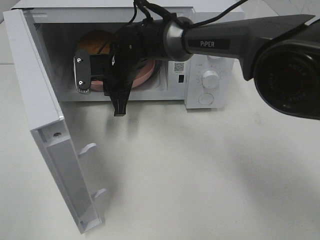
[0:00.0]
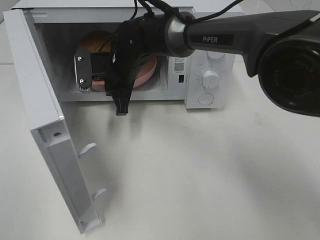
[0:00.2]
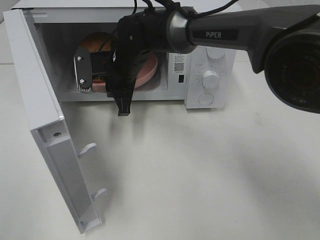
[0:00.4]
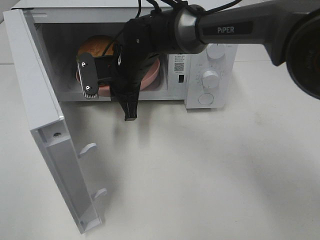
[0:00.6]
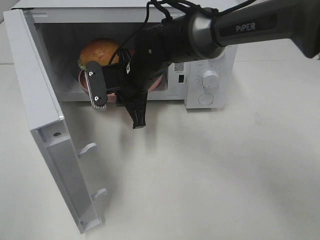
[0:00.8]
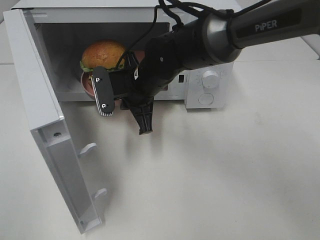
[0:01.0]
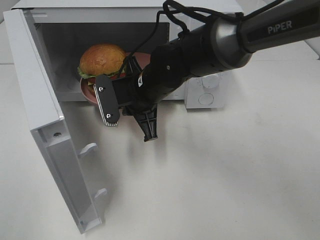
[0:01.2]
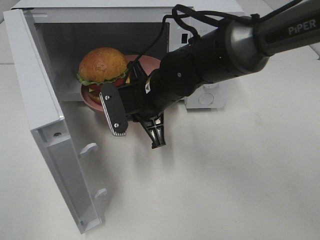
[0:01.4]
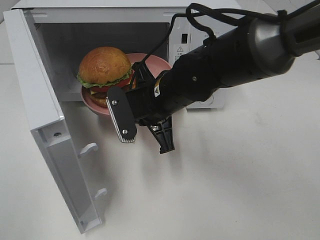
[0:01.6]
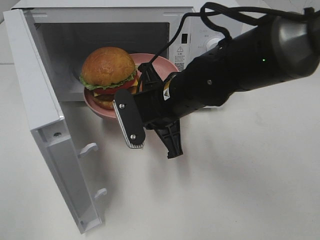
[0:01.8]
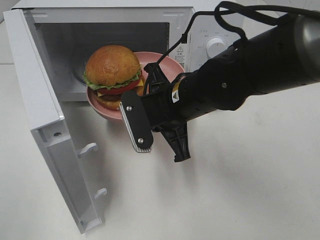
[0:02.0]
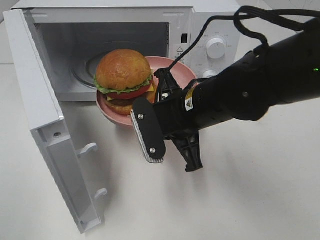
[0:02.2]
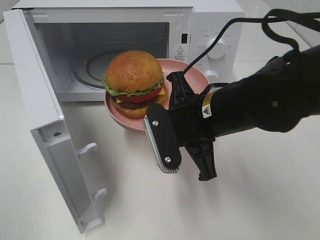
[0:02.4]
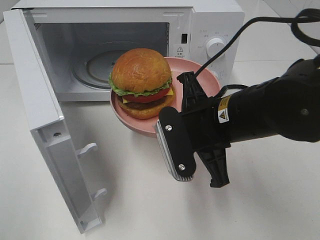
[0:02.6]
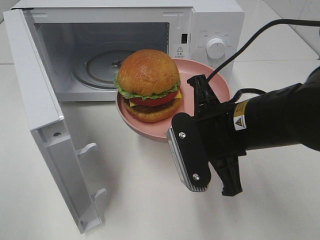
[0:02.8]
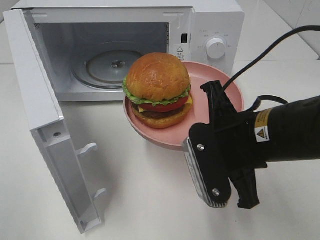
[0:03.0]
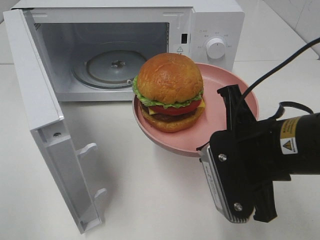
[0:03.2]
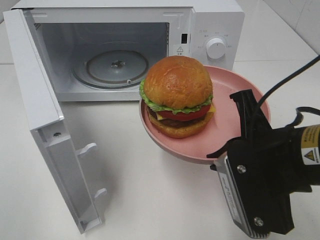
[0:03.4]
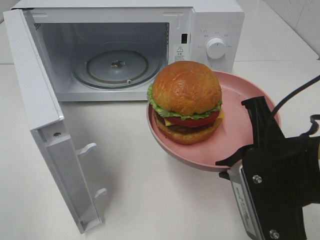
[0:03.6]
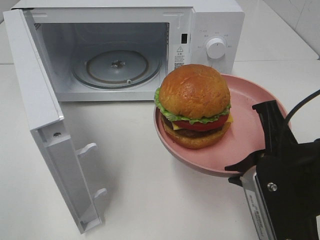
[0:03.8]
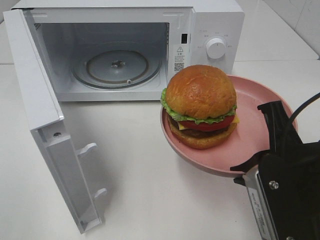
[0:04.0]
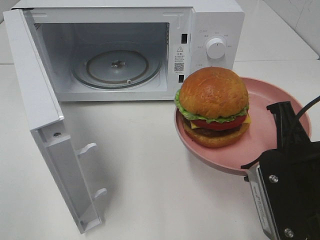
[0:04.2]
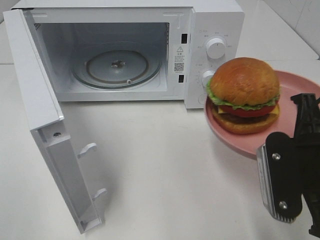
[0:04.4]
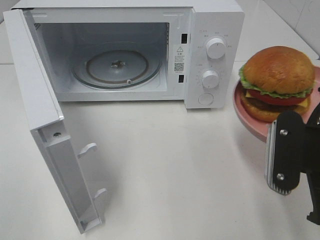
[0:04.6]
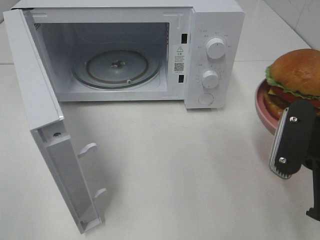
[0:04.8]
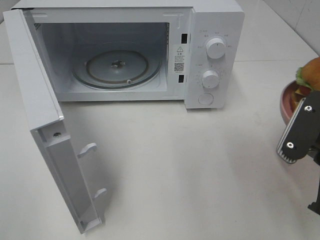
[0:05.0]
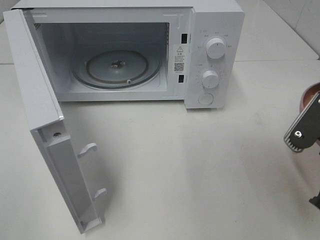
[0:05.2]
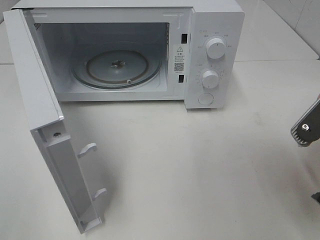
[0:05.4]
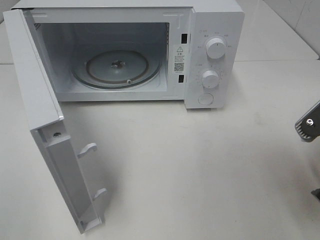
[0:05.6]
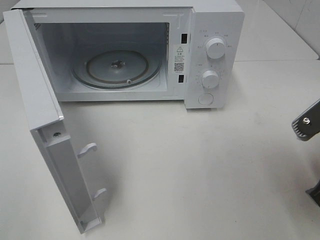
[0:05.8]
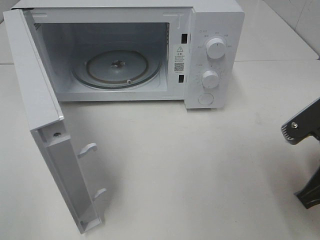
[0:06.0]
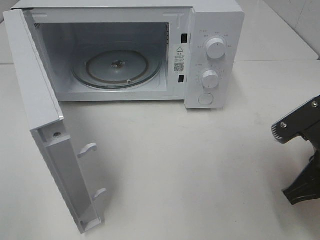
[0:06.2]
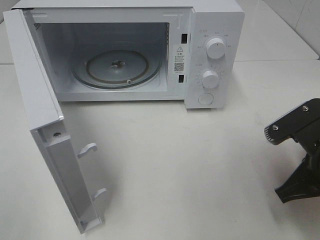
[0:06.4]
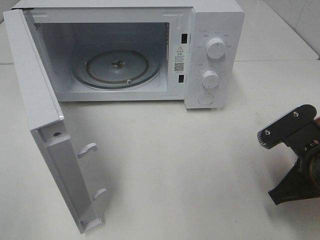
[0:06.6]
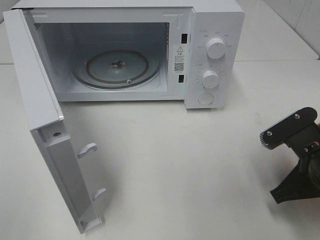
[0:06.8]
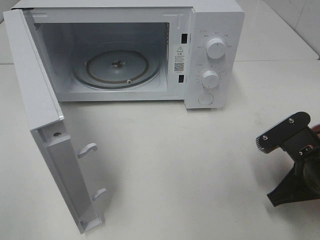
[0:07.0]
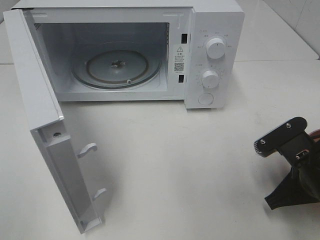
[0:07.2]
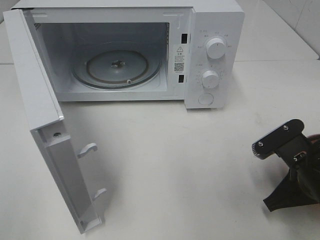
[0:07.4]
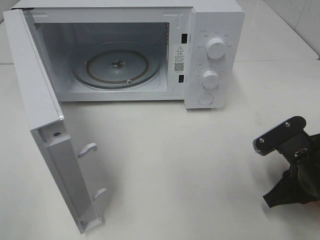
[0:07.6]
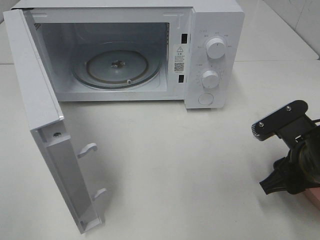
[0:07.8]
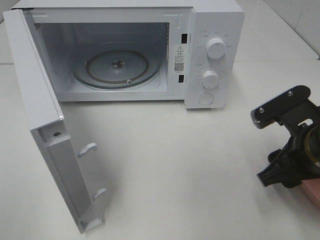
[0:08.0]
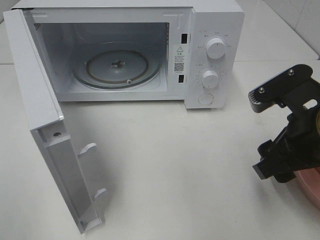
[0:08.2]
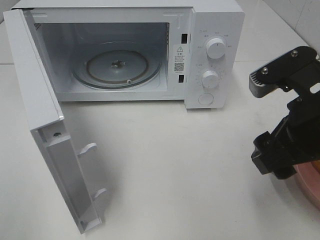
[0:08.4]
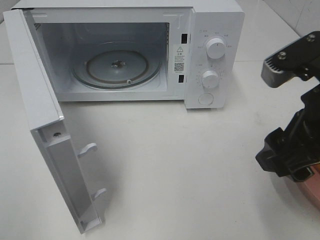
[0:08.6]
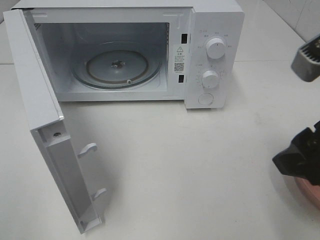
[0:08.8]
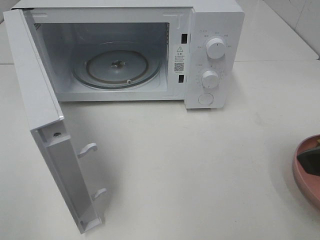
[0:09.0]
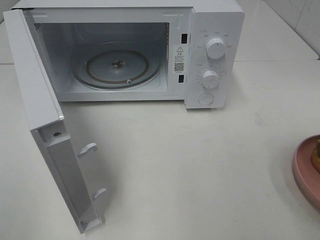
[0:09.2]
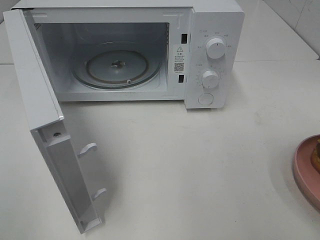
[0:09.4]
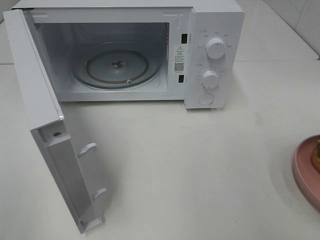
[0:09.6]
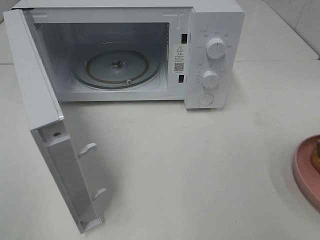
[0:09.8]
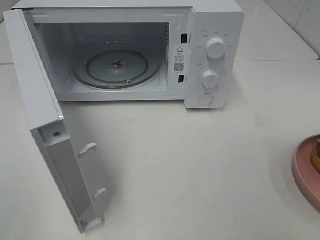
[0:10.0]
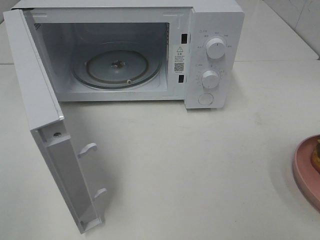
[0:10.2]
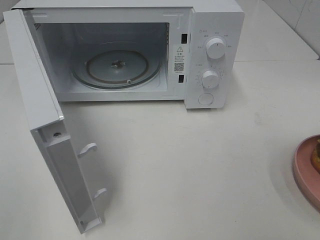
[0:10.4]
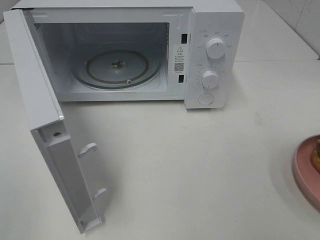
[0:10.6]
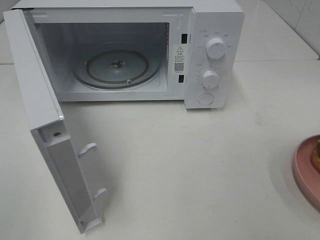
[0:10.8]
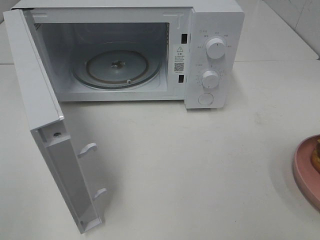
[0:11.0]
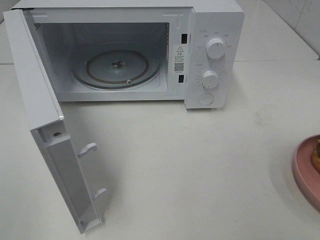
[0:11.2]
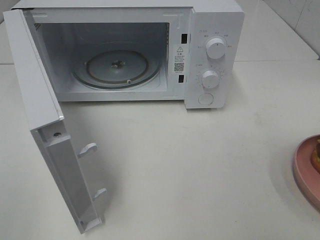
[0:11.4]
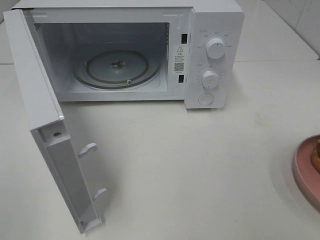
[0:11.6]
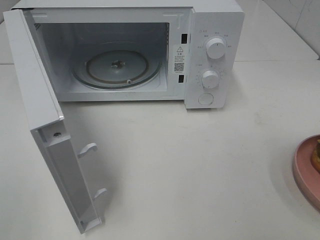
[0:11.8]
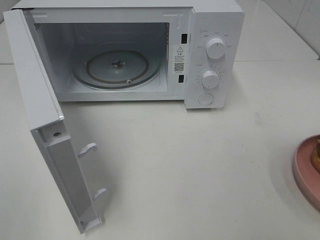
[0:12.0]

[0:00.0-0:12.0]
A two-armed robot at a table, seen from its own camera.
Task of the whole recording: Heat the burger.
Step, 0:00.0 to 0:07.6: Right hand: place the plate on the table.
0:00.0 to 0:01.6: The right gripper heads backward and to the right, covering approximately 15 cm.
0:01.6 to 0:03.0: The right gripper is displaced backward and to the right by some 15 cm.
0:03.0 to 0:04.4: The right gripper shifts some 5 cm to the right.
0:06.0 to 0:07.6: The right gripper heads downward, covering about 10 cm.
0:07.6 to 0:09.0: The right gripper travels upward by about 20 cm, and opens up.
0:09.0 to 0:10.4: The right gripper shifts approximately 15 cm backward and to the right.
0:10.4 to 0:12.0: Both grippers stay about where they are.

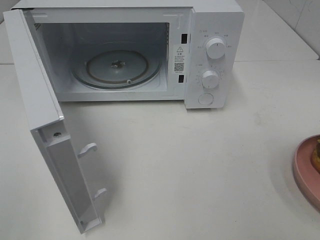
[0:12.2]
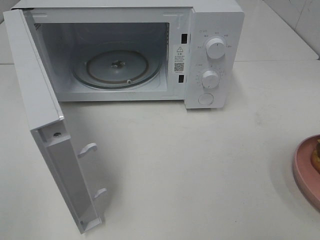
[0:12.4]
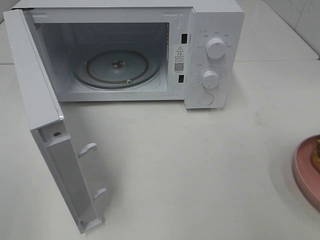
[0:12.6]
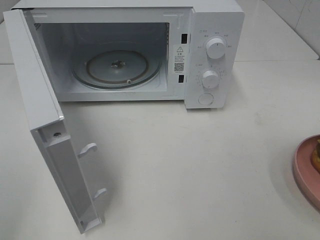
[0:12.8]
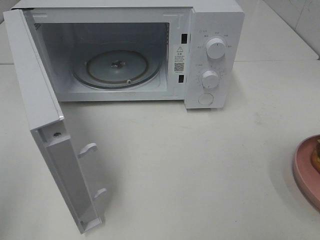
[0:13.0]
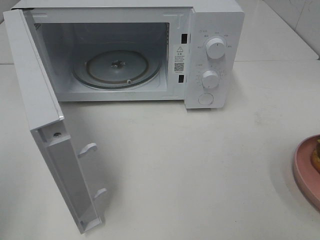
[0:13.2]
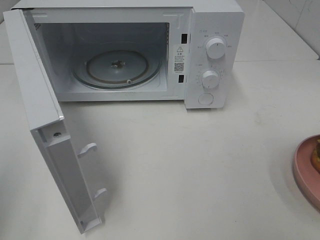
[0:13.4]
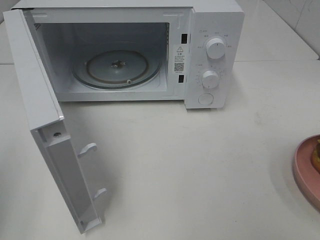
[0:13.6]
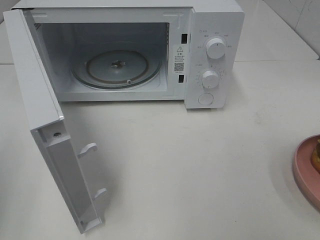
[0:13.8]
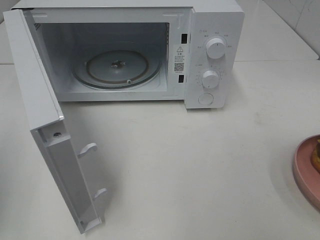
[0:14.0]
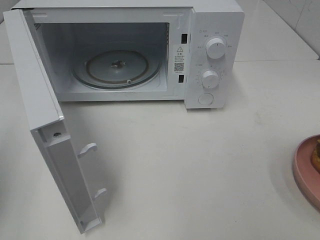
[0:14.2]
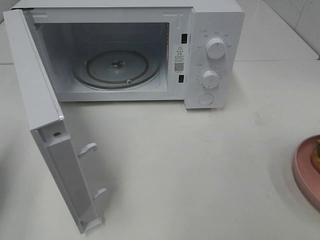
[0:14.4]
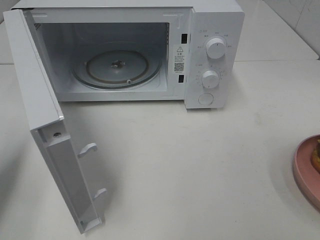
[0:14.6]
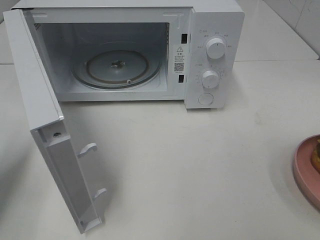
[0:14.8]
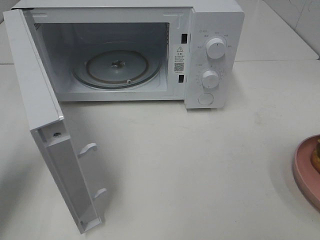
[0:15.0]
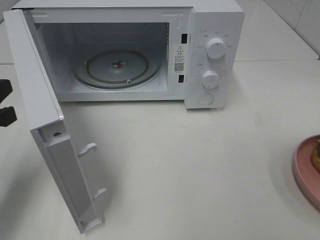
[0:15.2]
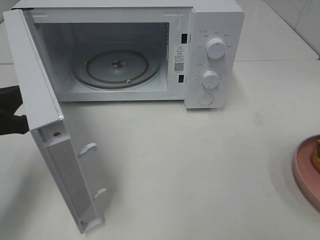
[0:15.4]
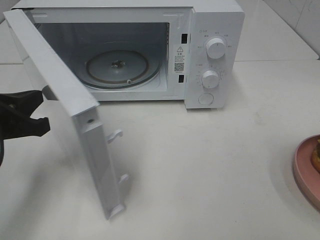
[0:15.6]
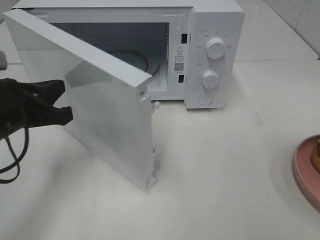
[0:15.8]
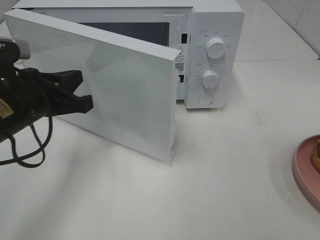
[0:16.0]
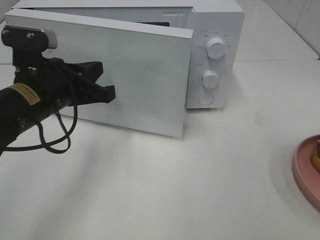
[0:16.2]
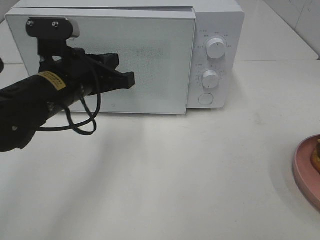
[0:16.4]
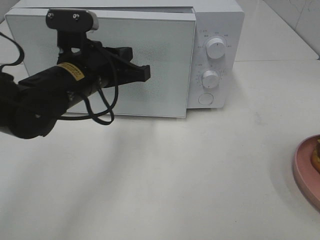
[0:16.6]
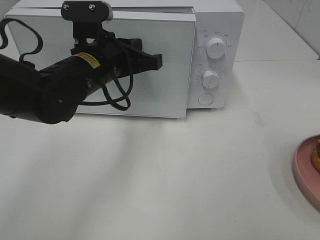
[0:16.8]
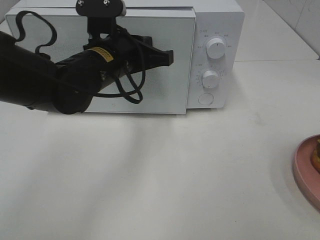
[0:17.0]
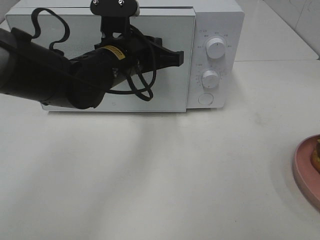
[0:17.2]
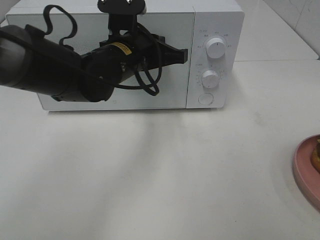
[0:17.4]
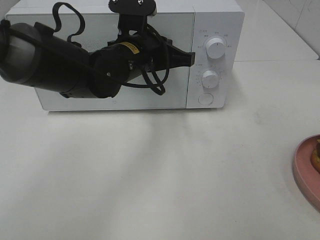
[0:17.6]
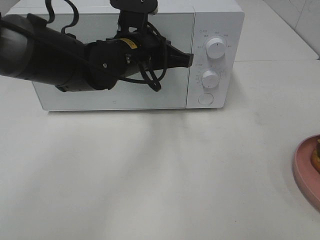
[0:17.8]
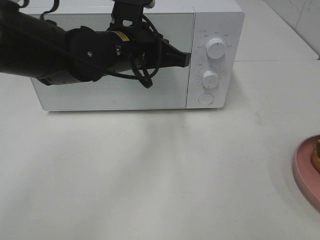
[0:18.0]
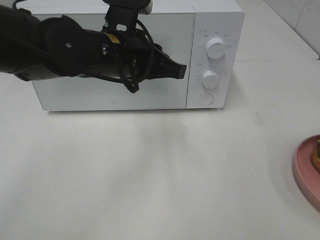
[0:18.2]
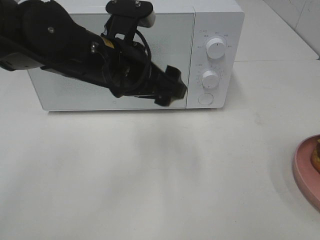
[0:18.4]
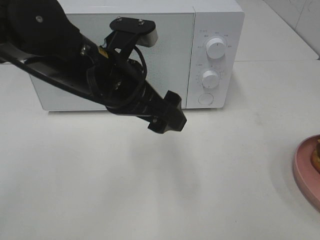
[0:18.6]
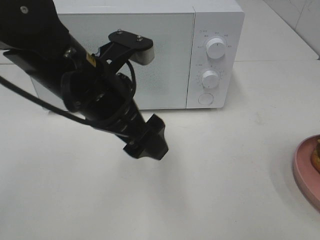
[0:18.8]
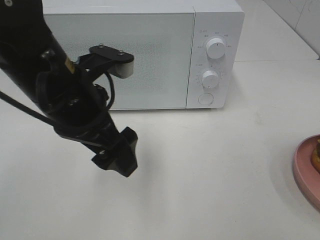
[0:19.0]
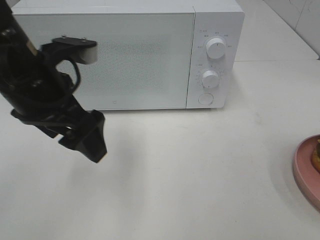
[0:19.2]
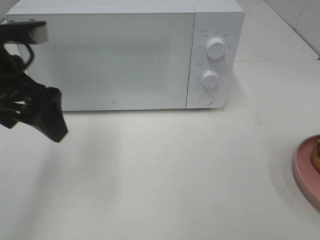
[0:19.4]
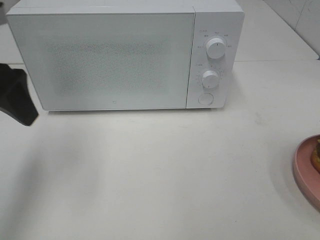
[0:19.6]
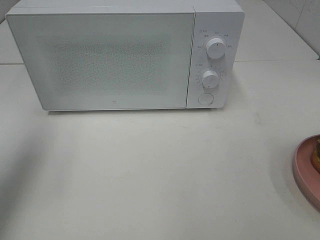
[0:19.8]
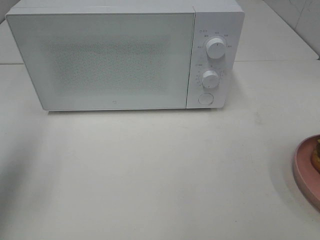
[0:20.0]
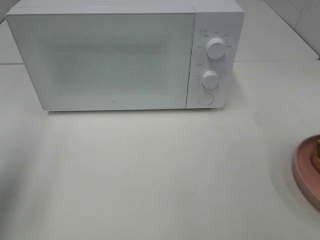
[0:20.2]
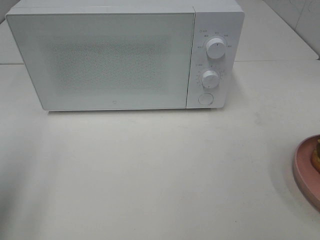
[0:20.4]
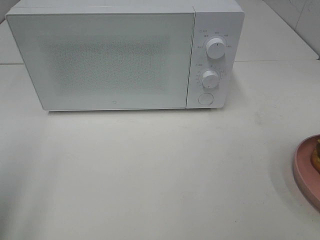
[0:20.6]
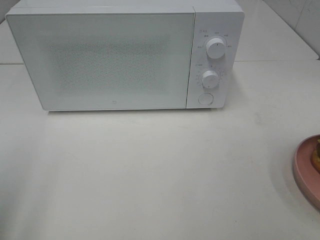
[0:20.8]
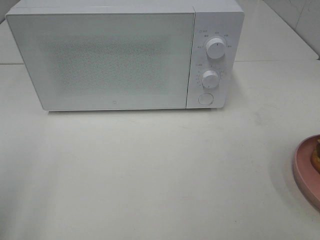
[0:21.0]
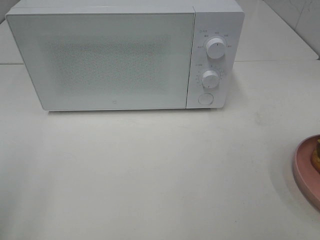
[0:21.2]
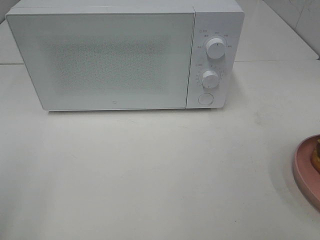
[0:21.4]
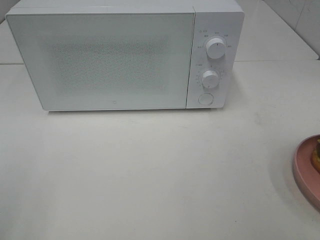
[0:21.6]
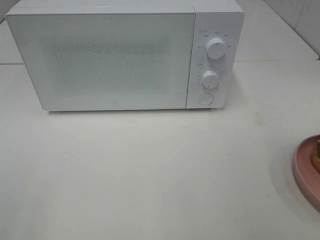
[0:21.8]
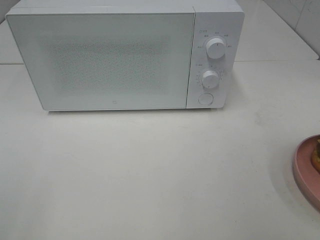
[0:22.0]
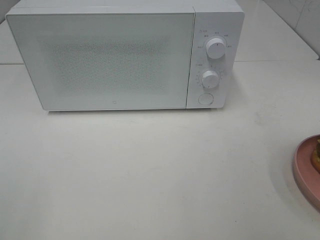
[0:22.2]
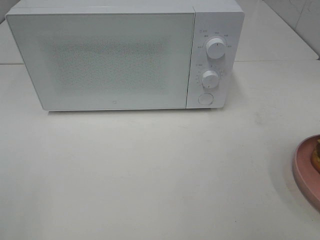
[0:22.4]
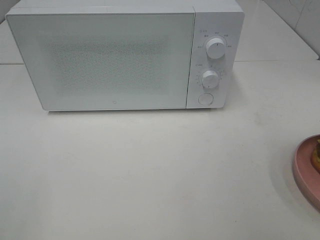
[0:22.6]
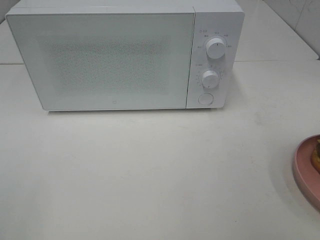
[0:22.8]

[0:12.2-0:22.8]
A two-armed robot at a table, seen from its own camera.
Task of the whole recording: Heat the burger.
Step, 0:12.2 to 0:18.0: Left hand: close the microwave door.
0:13.8 to 0:15.2: The left gripper is displaced forward, downward and to the right by some 15 cm.
0:15.2 to 0:16.8: The left gripper shifts approximately 20 cm to the right and forward.
0:18.2 to 0:19.8: The left gripper goes roughly 25 cm to the left, and opens its fingers.
0:19.8 to 0:21.2: The left gripper is displaced backward by roughly 15 cm.
